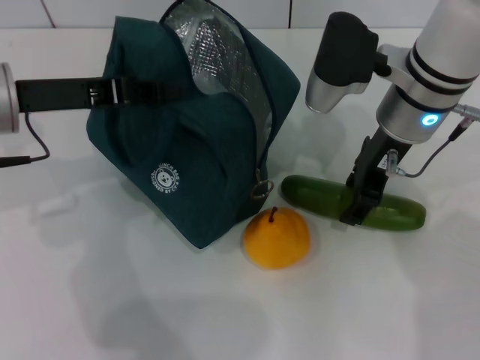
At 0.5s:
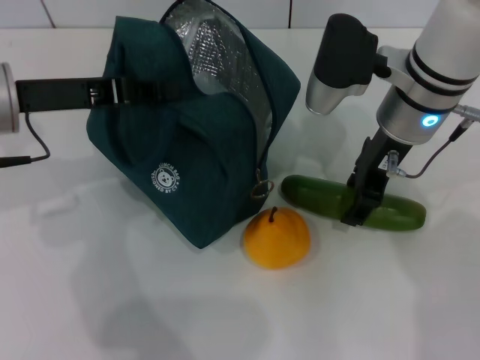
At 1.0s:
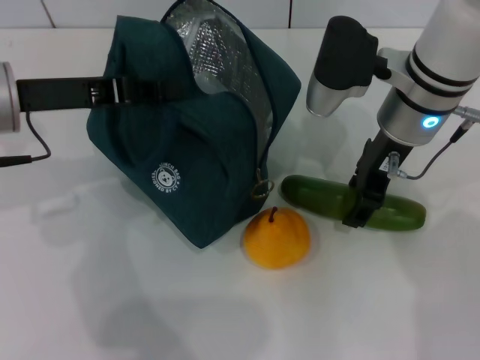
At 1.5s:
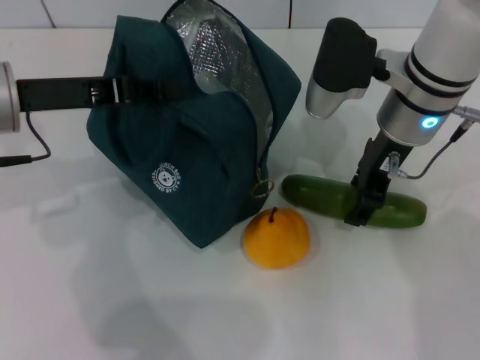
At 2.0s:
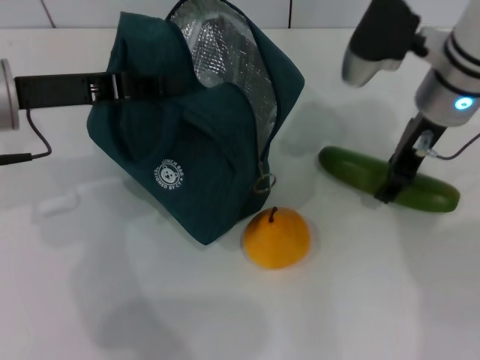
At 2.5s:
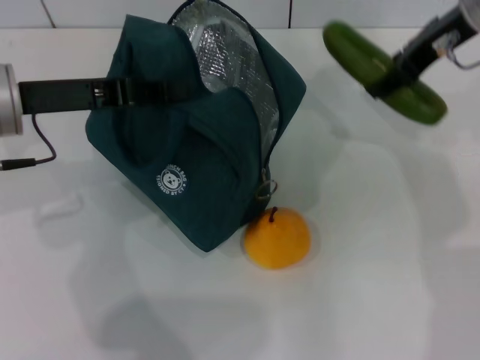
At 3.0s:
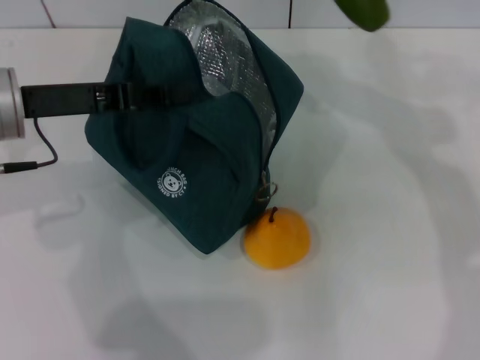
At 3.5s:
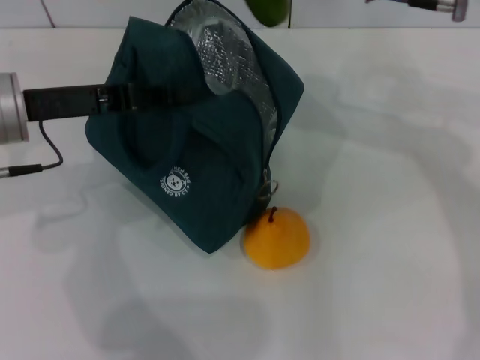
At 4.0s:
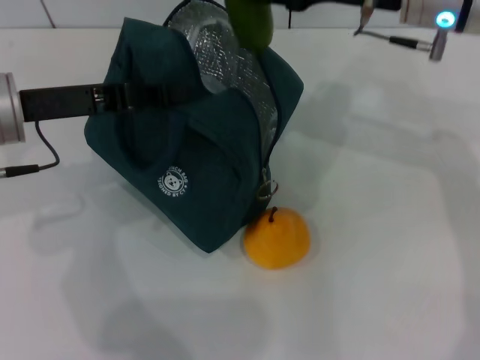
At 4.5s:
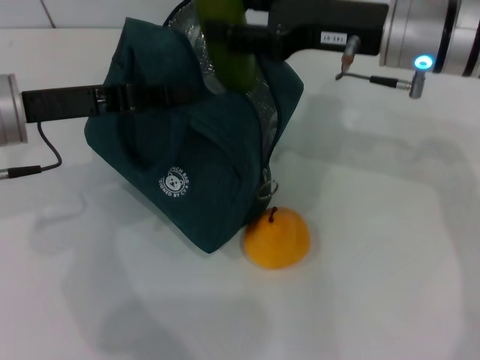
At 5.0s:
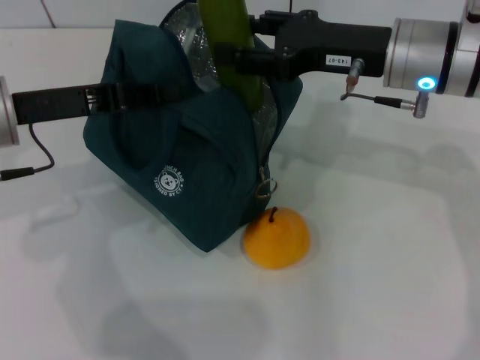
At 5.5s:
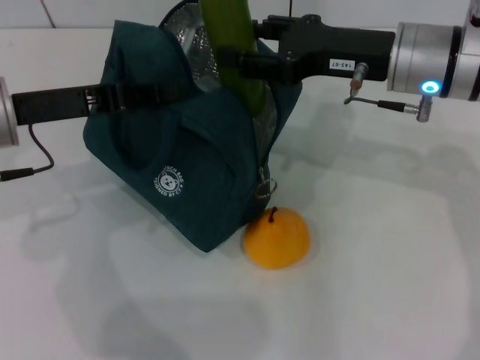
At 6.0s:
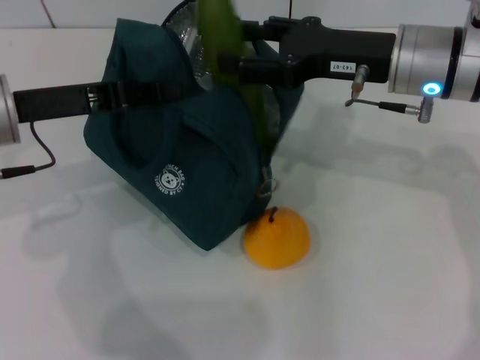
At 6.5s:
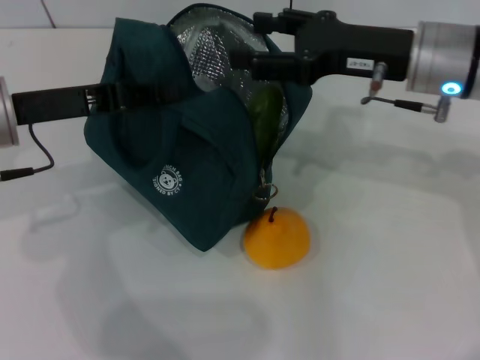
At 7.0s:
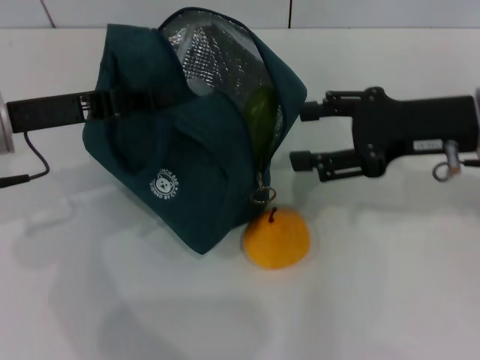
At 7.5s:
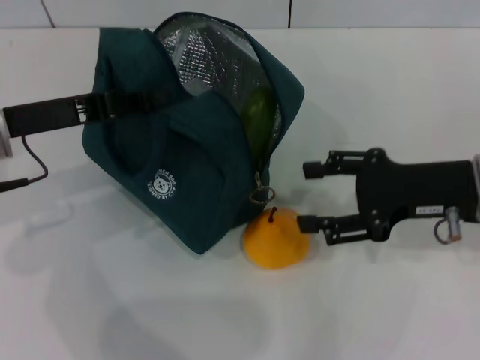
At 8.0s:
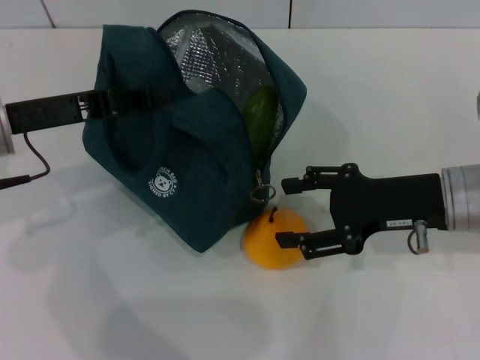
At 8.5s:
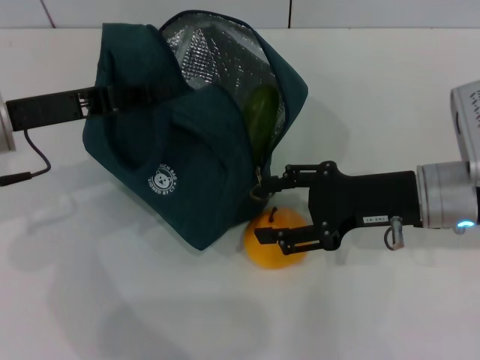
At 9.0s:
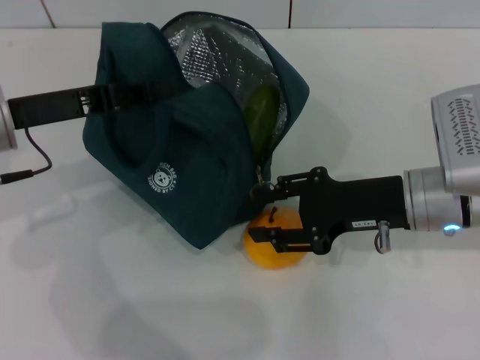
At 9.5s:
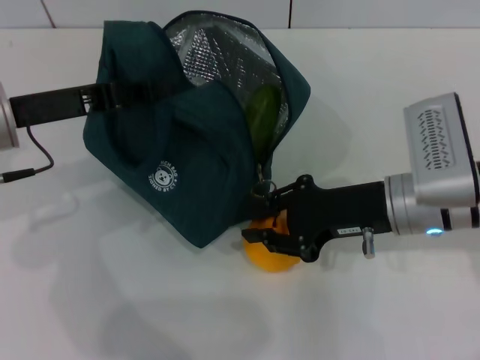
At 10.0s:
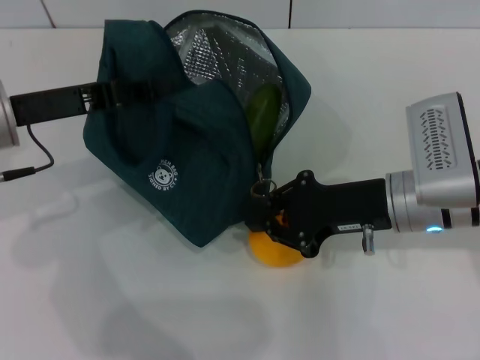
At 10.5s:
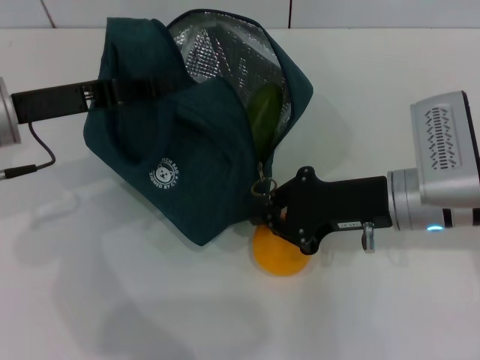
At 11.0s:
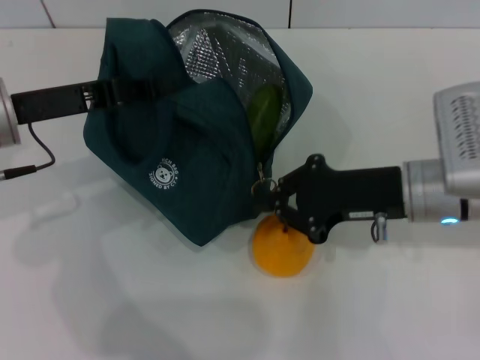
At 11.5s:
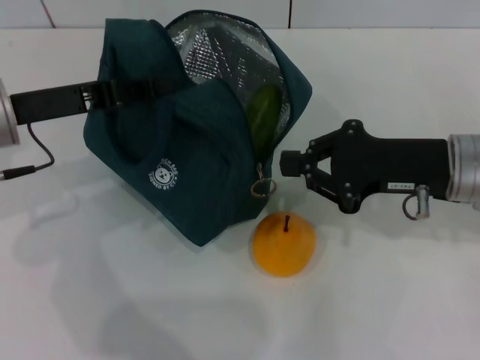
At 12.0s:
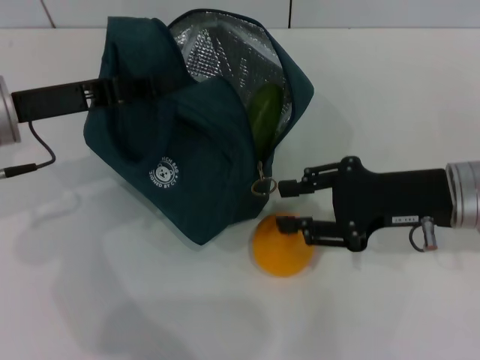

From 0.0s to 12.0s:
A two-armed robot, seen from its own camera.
Step, from 1.0s to 6.0s: Put the cucumber into the lunch bag with your right hand.
From 2.0s to 4.0s: The right gripper heads upward, covering some 5 cm.
From 4.0s to 6.0s: The grippers make only small movements.
From 6.0s to 8.0s: The right gripper moves backward and downward, roughly 10 cm.
From 8.0s to 10.0s: The right gripper closes its fingers.
From 10.0s to 12.0s: The right gripper changes place by some 5 cm.

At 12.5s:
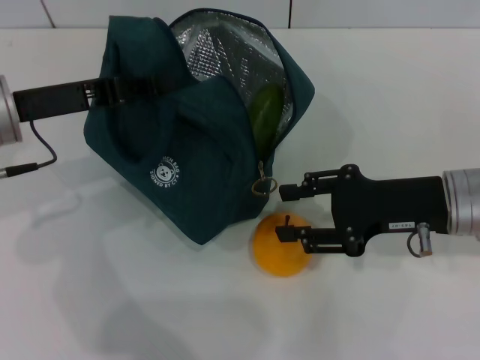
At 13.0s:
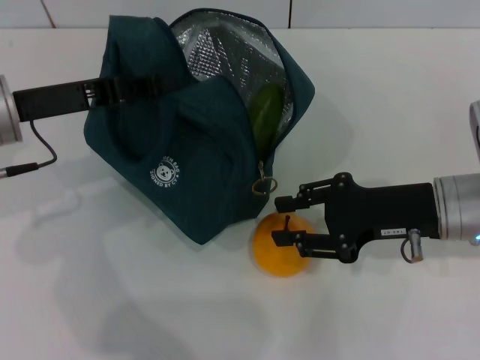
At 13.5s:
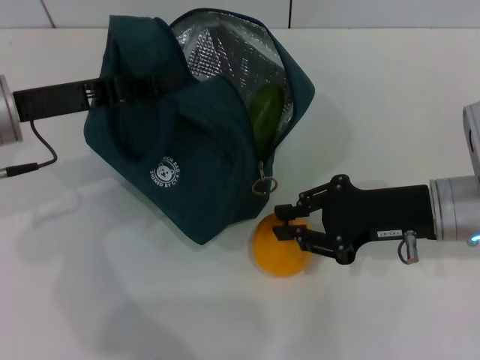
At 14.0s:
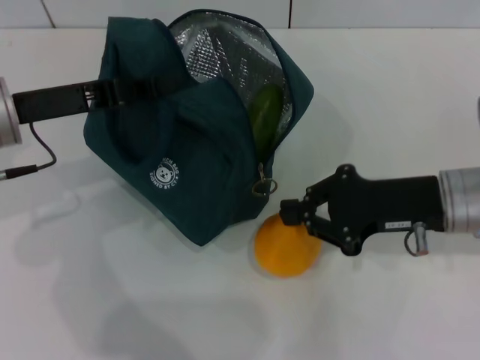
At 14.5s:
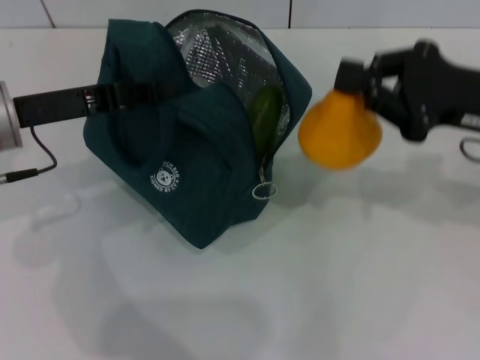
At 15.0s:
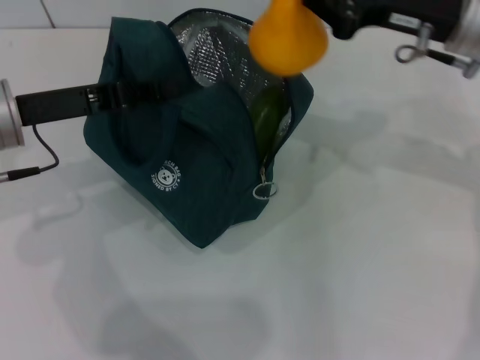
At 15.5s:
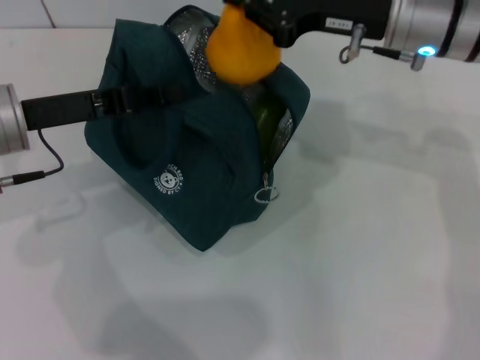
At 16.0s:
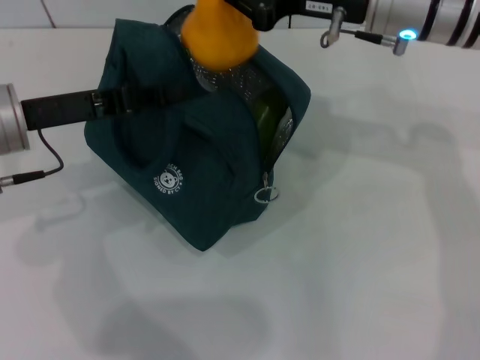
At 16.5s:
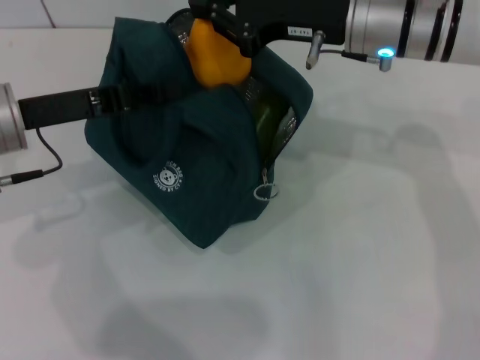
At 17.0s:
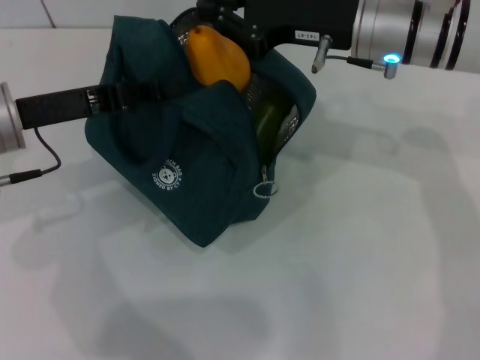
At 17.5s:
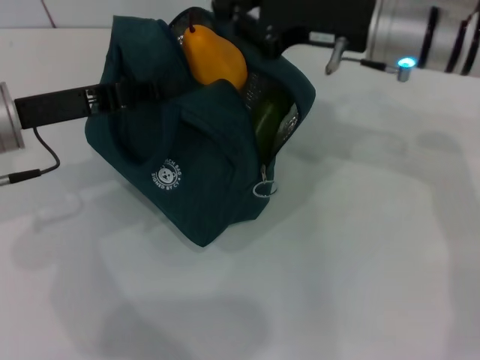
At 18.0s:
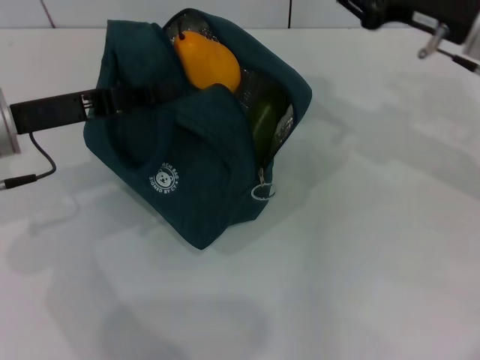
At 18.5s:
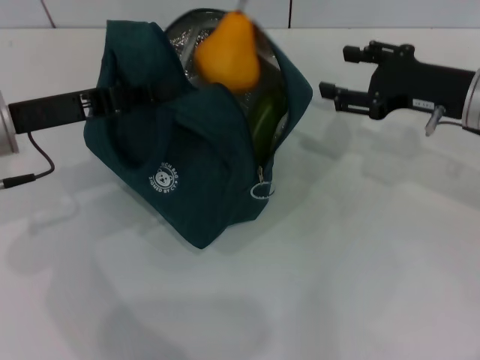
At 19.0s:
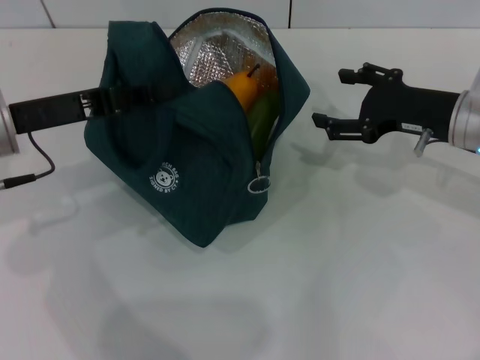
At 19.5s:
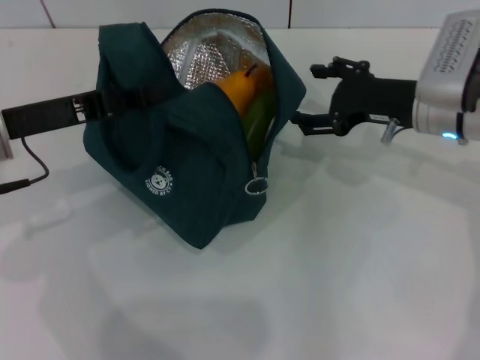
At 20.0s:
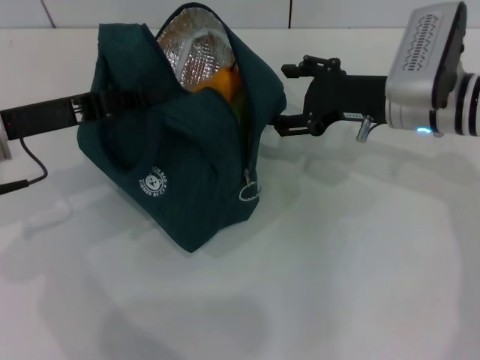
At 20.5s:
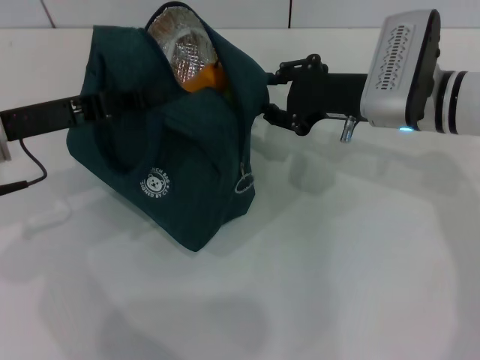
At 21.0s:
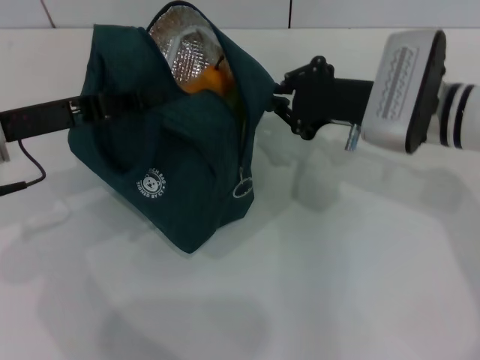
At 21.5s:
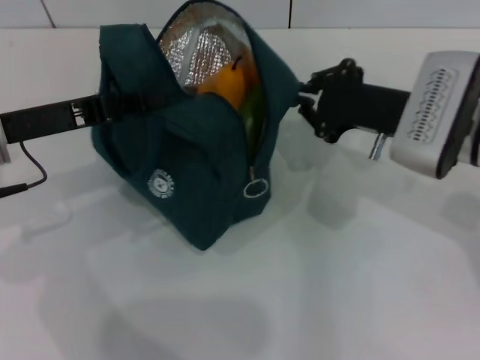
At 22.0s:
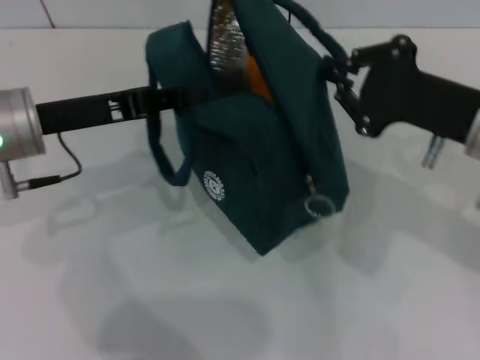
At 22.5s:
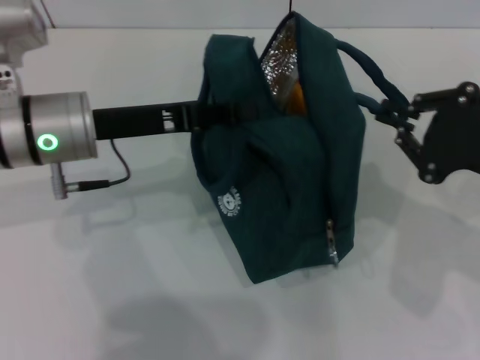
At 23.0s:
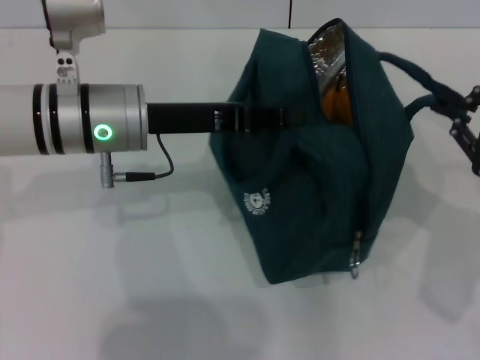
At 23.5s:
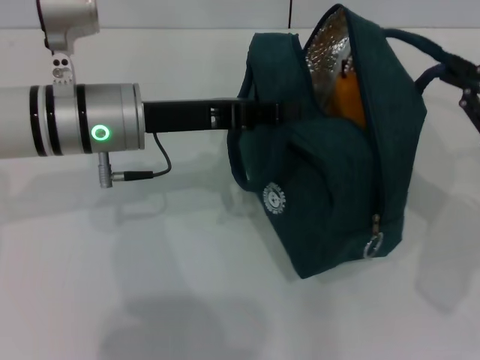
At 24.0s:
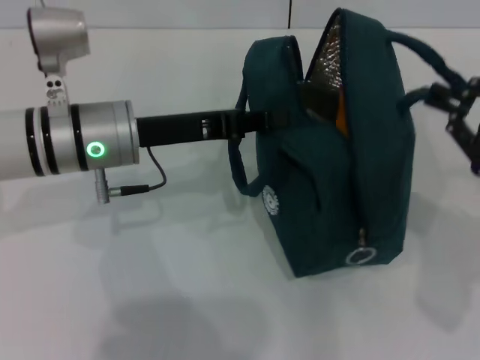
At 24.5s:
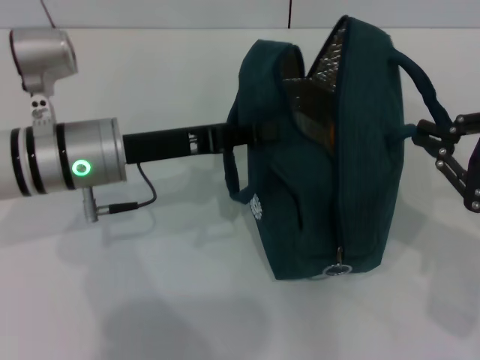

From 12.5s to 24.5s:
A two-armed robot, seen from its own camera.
From 12.5s to 14.5s: The right gripper goes about 5 cm upward, and closes up.
From 14.5s to 16.5s: The right gripper moves to the left and forward, roughly 15 cm.
From 16.5s to 18.5s: The right gripper shifts approximately 15 cm to the right and downward, and opens.
From 18.5s to 20.5s: The right gripper shifts approximately 10 cm to the left.
From 20.5s to 22.5s: The right gripper heads backward and to the right, covering about 20 cm, and closes its fingers. The left gripper shifts about 5 cm to the right.

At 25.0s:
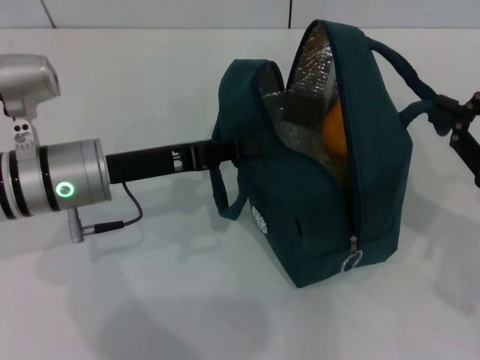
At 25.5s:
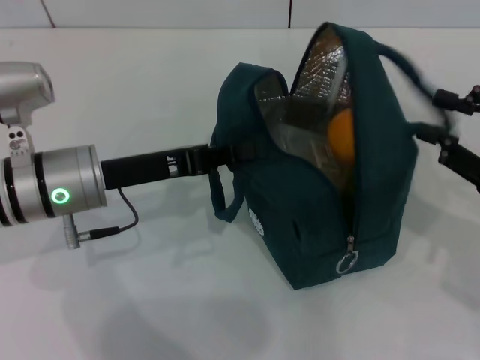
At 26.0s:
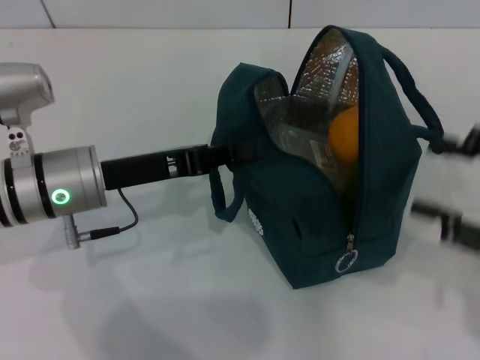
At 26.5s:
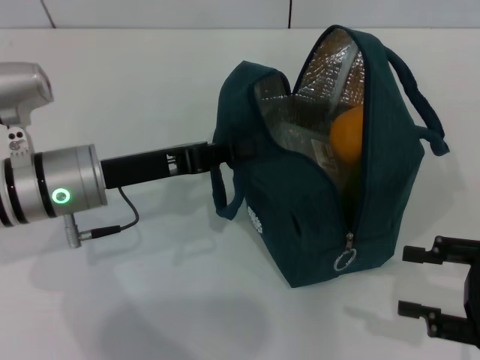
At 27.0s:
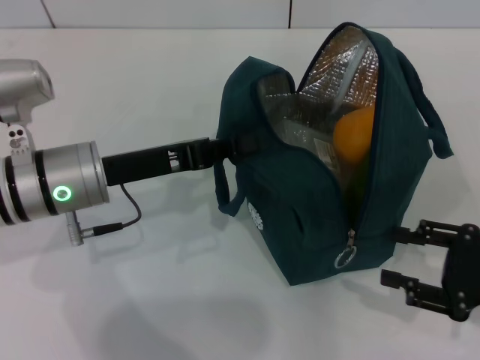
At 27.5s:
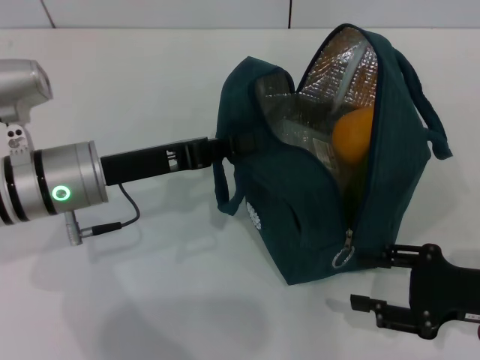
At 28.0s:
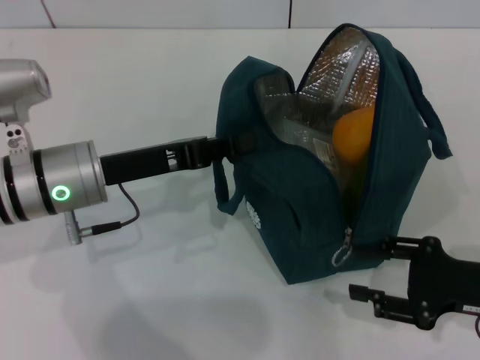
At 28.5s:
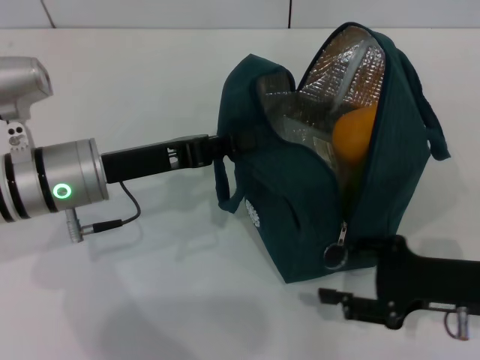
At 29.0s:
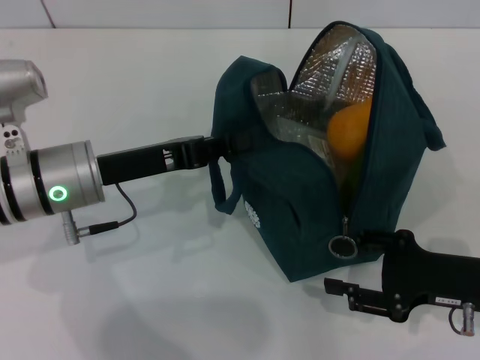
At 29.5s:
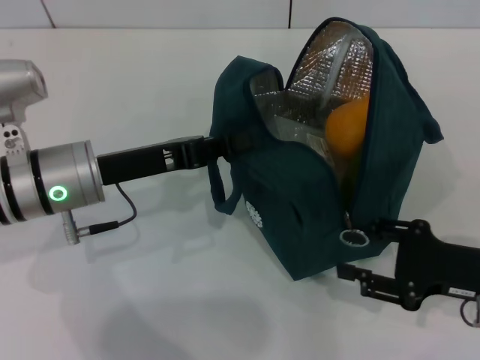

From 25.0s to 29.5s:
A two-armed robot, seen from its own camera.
From 25.0s to 27.0s: The right gripper is displaced downward by roughly 10 cm, and opens.
